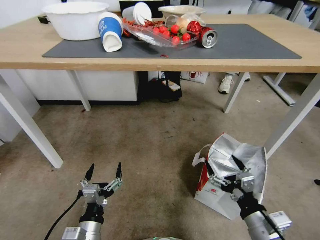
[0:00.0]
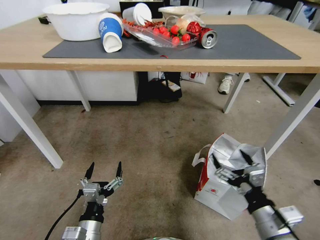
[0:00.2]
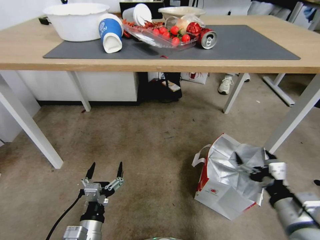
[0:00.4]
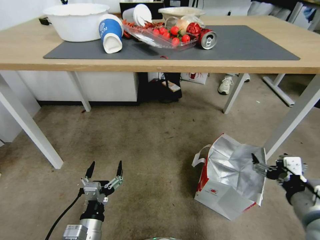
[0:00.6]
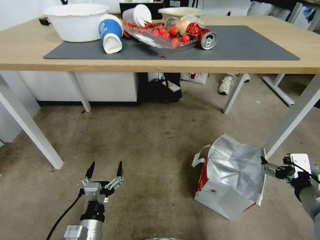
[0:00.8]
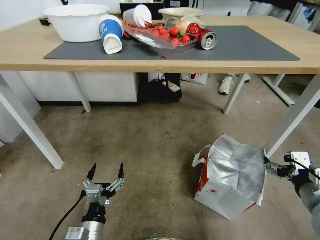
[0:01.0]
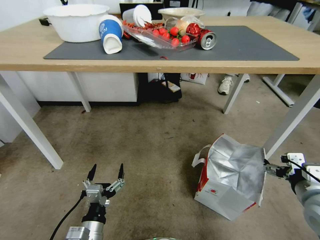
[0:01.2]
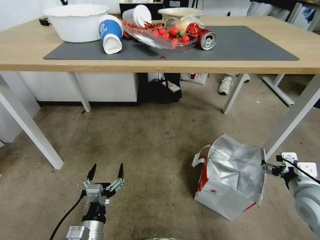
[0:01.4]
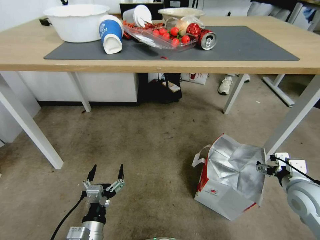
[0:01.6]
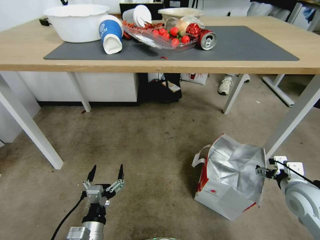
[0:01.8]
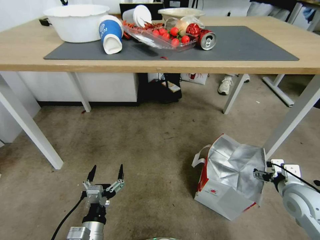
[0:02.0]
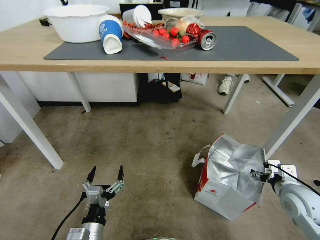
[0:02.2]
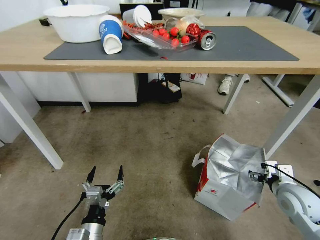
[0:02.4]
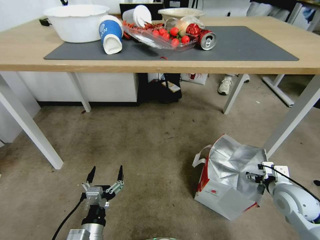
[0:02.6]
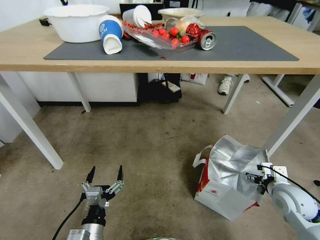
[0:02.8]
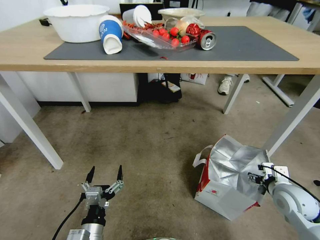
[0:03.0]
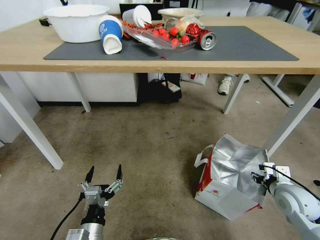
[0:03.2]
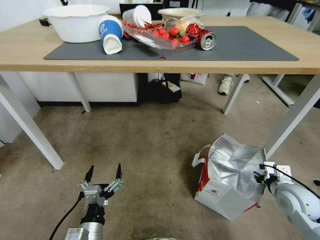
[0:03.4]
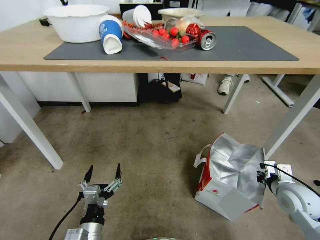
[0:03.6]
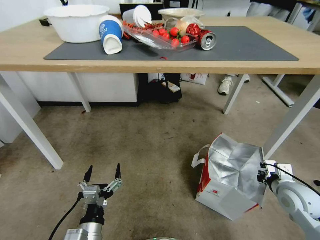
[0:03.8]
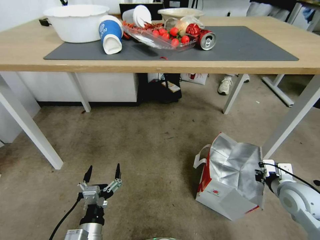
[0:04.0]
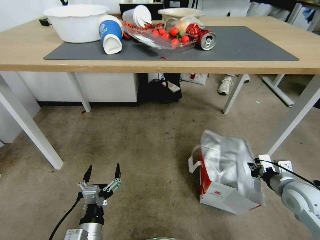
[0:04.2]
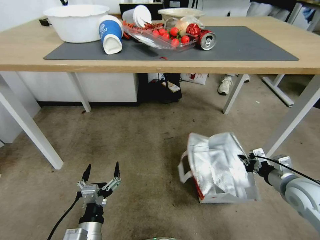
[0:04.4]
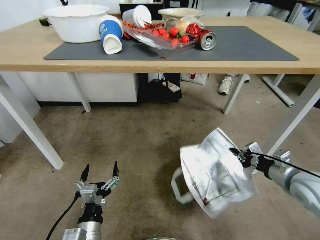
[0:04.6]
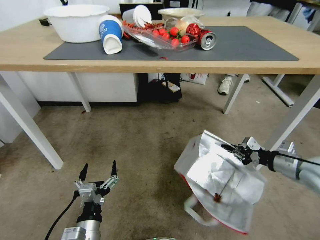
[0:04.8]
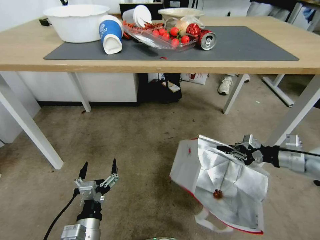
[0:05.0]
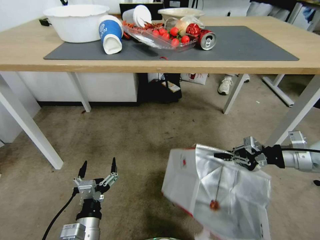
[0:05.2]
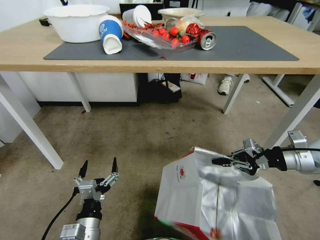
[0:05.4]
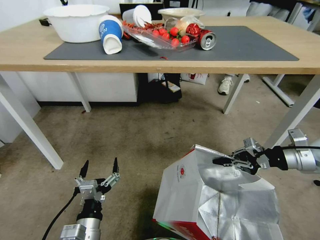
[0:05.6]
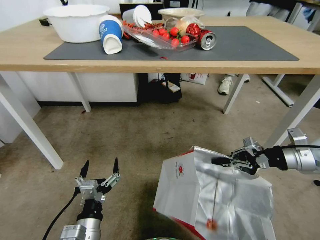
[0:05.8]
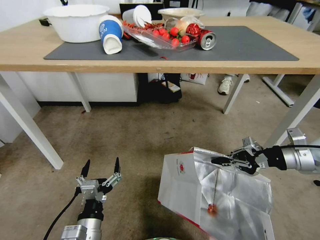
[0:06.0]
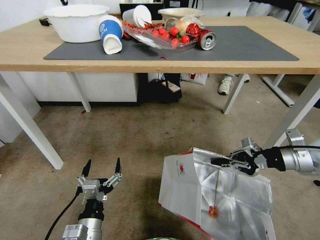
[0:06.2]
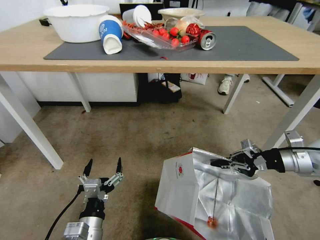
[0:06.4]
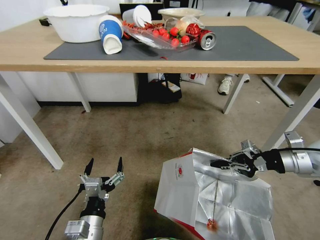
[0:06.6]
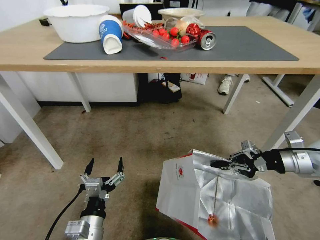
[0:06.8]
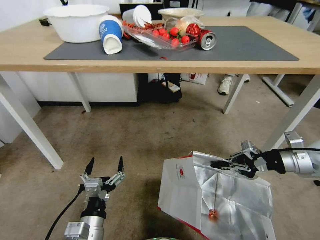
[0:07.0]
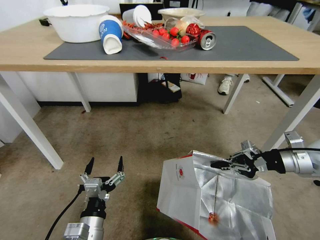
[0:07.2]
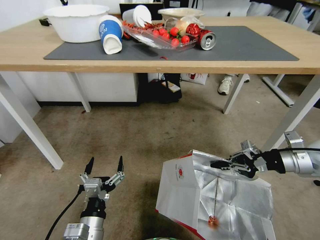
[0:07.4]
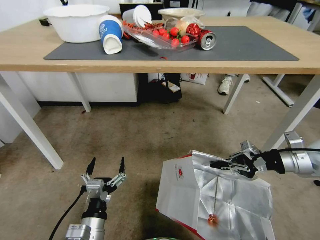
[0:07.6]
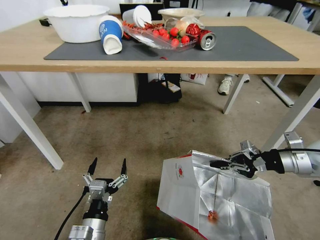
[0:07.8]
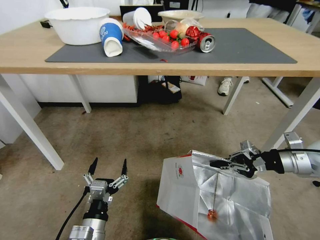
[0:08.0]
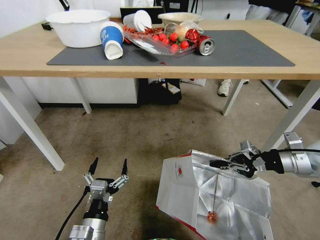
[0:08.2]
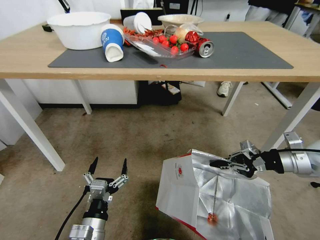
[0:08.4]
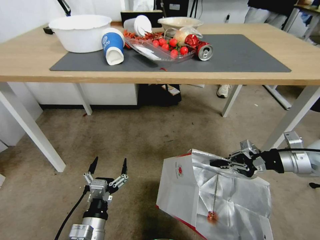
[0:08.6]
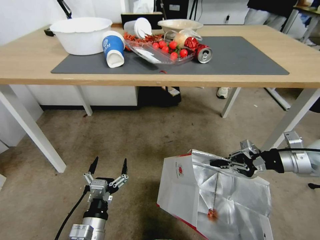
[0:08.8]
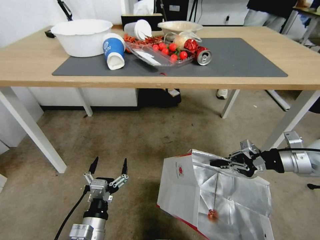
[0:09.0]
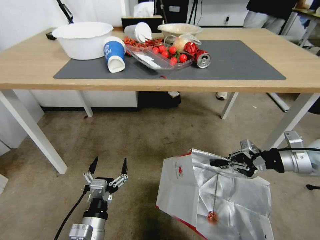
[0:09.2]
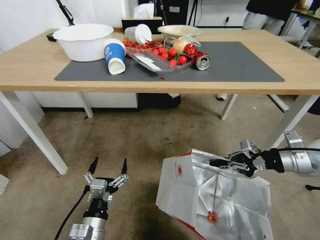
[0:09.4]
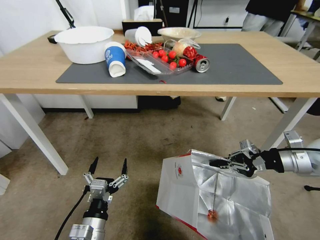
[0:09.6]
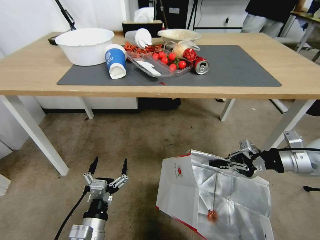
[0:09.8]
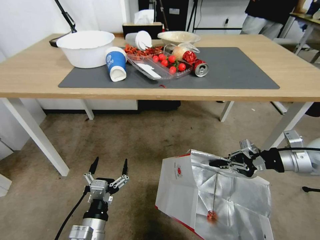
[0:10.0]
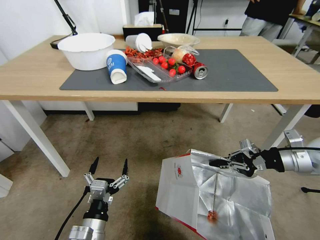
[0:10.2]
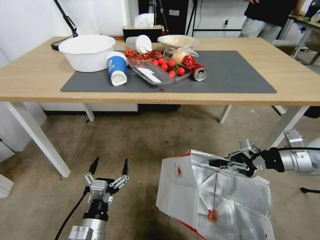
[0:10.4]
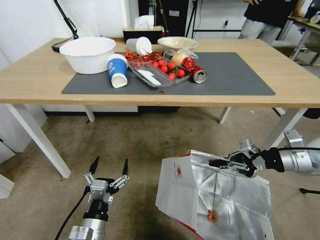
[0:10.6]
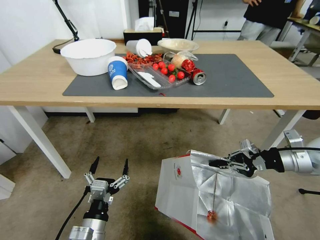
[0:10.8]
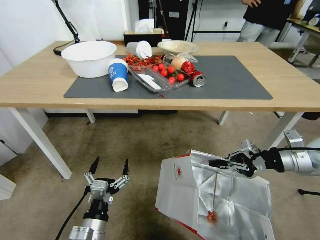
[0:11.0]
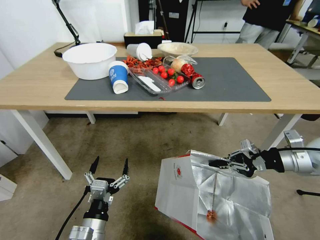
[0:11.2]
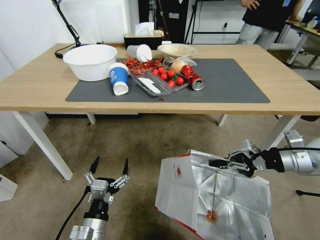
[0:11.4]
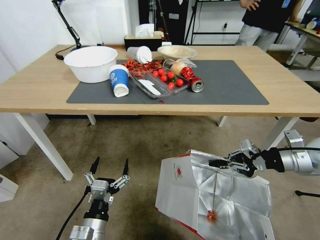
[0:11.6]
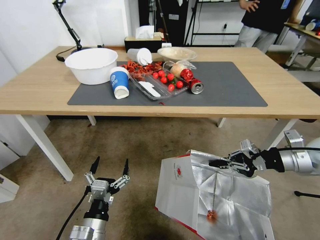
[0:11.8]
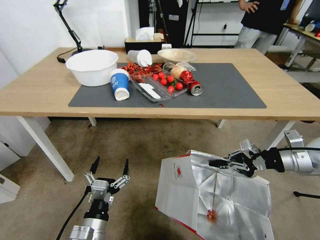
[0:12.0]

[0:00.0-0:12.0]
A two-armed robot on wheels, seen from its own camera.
Task of the whole recording: Pick up the food delivery bag from the floor and place it on the table.
0:00.0 to 0:01.6: The right gripper goes roughly 20 cm to the right and forward.
0:01.6 to 0:03.0: The right gripper heads downward, covering some 5 cm.
0:03.0 to 0:04.4: The right gripper closes.
0:04.4 to 0:06.0: The right gripper travels upward and forward by roughly 15 cm.
0:06.0 to 0:07.6: The two grippers keep their place.

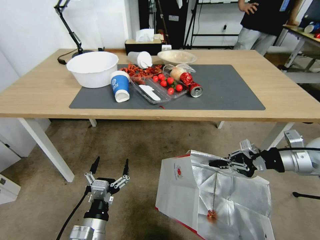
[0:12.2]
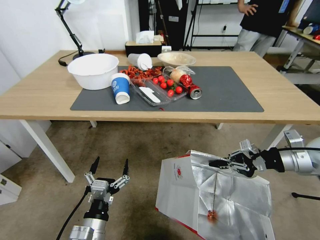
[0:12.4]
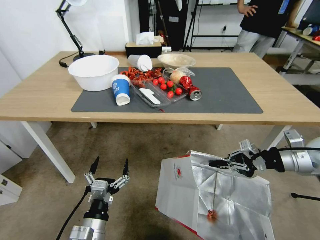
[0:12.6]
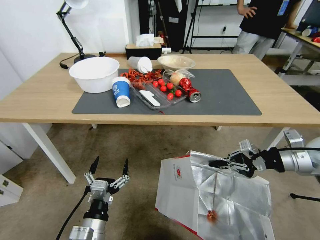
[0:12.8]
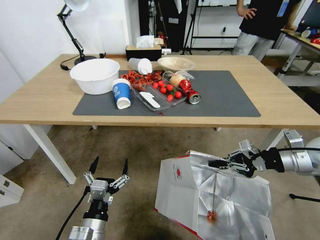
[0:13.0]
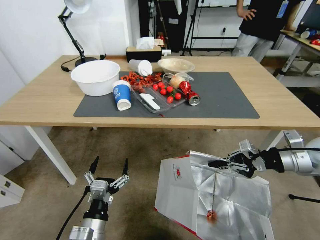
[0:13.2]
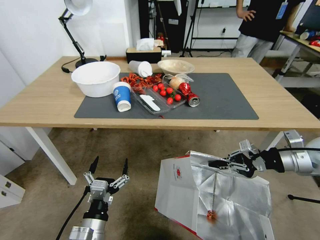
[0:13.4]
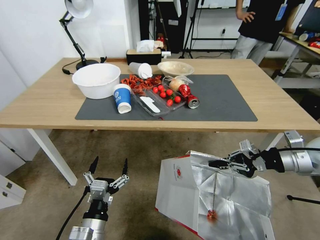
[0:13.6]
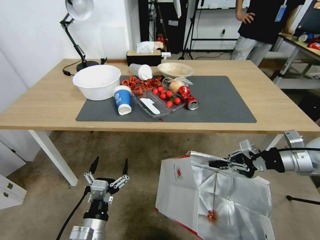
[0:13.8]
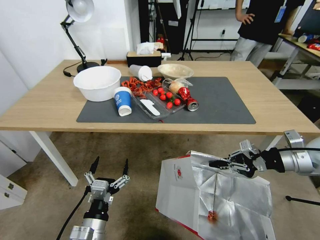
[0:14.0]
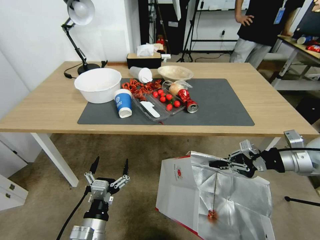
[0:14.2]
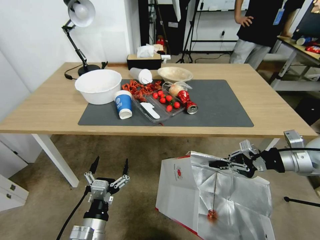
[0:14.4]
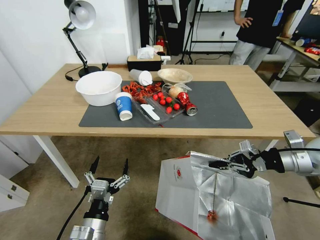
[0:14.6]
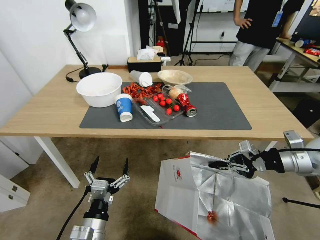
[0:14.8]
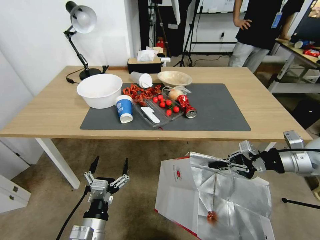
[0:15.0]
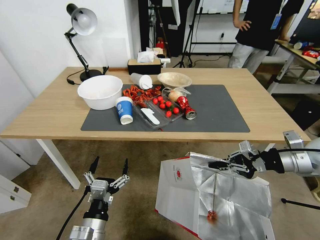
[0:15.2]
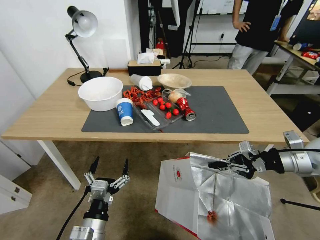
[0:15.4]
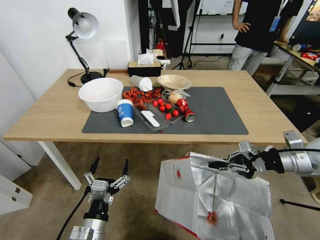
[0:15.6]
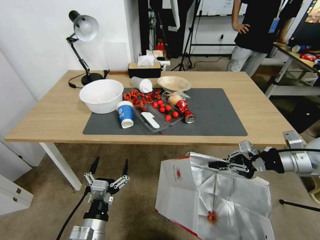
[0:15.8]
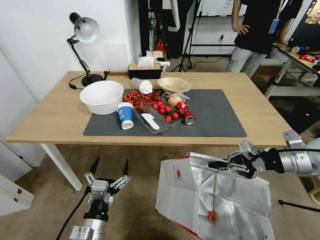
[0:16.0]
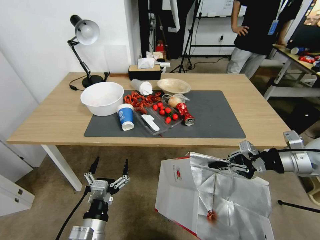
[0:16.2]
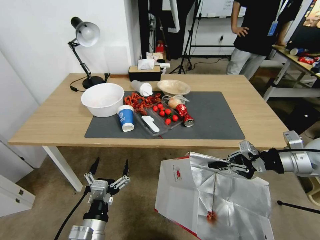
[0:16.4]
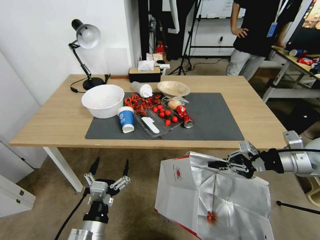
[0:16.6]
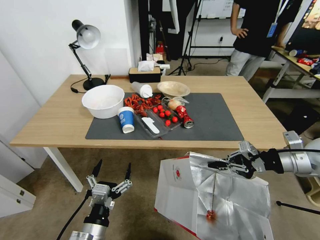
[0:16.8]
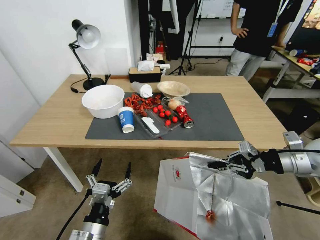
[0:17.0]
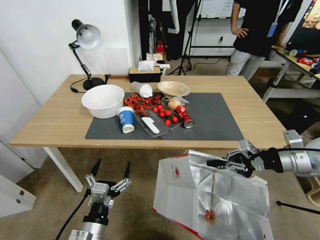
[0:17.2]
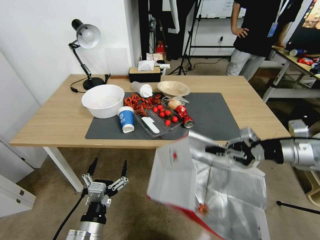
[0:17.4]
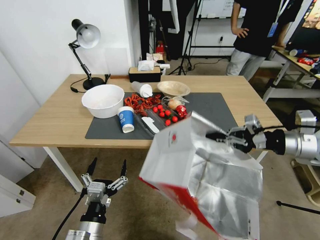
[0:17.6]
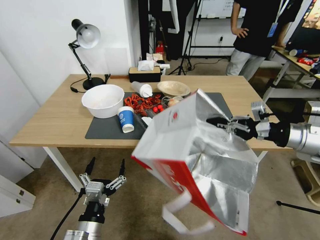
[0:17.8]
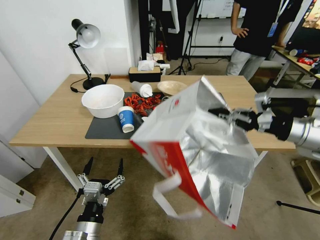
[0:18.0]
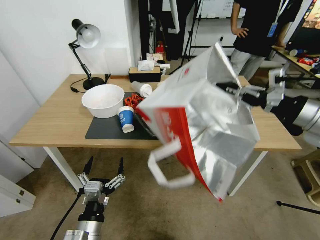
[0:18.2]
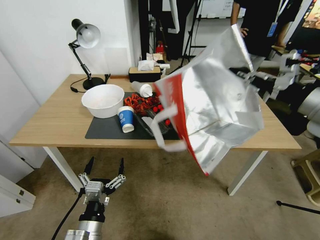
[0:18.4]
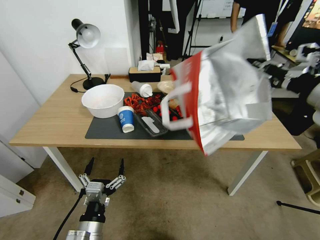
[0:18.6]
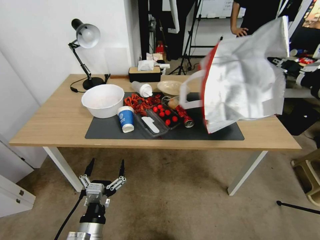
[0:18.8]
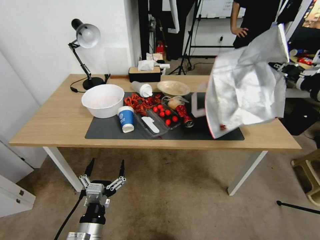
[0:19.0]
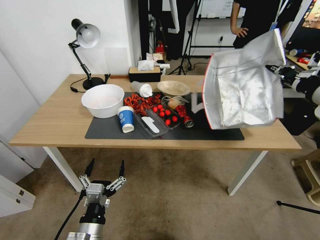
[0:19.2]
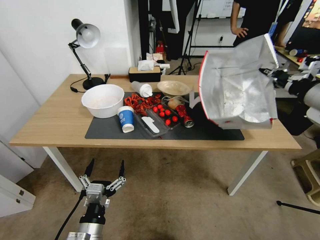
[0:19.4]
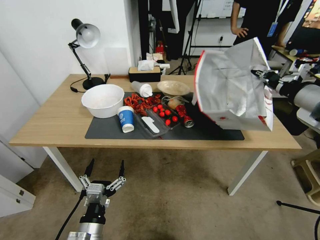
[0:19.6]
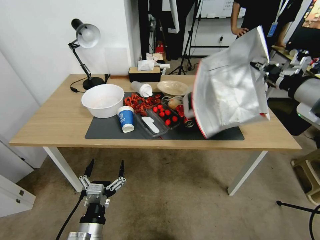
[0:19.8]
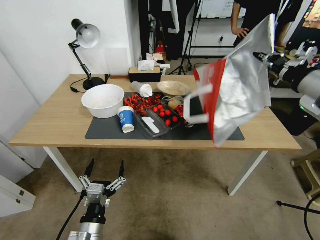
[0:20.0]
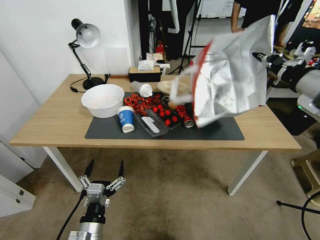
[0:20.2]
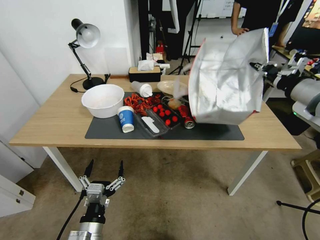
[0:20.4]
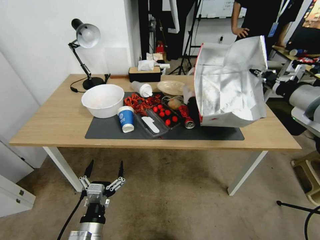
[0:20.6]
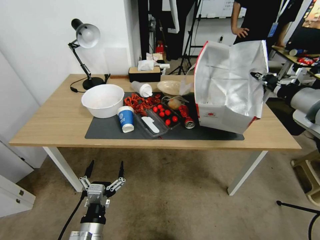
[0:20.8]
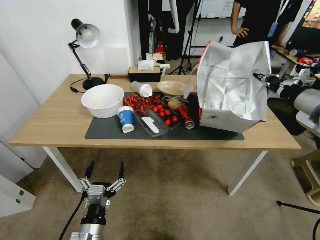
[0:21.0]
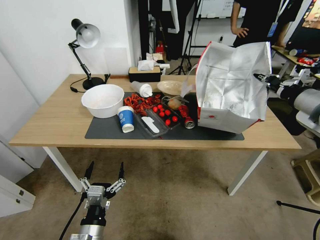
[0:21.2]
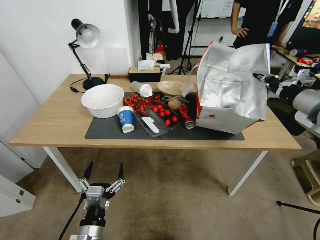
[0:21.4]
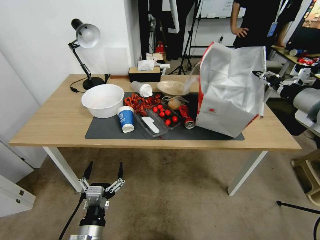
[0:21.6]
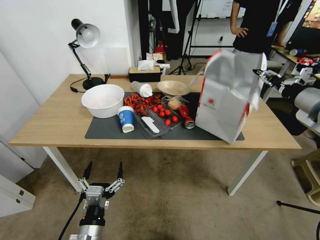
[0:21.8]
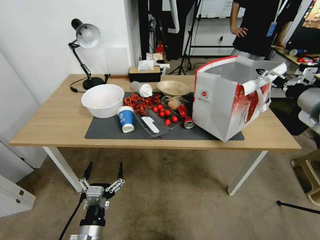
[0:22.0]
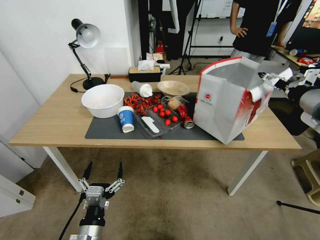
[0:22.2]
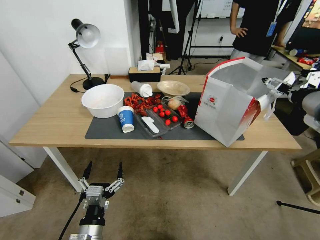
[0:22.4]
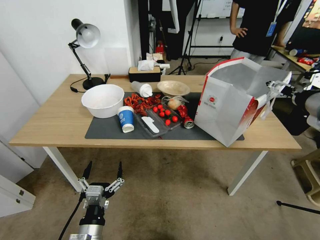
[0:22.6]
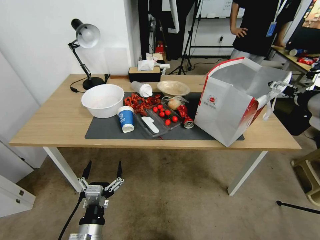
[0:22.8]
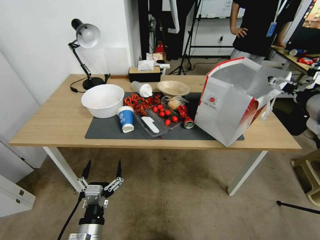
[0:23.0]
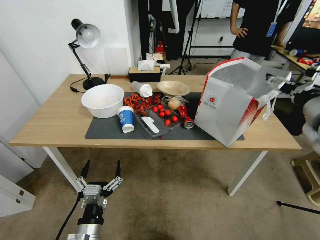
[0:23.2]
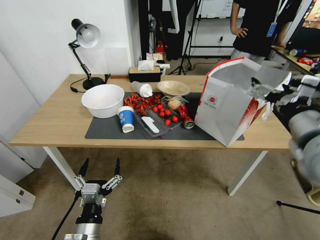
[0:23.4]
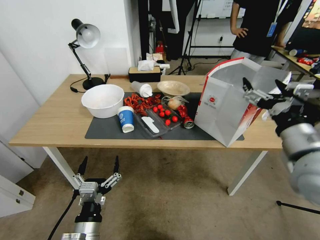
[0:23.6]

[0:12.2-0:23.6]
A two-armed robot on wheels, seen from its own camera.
Task of the whole recording: Pick up the food delivery bag from the floor and place it on the table.
0:16.4 to 0:17.8: The right gripper travels upward by approximately 5 cm.
0:17.8 to 0:19.4: The right gripper goes about 5 cm upward.
0:19.4 to 0:20.8: The grippers stay close to where they were, moving slightly.
0:20.8 to 0:22.2: The right gripper opens its fingers.
0:22.2 to 0:23.6: The right gripper shifts some 15 cm backward, to the left and downward.
